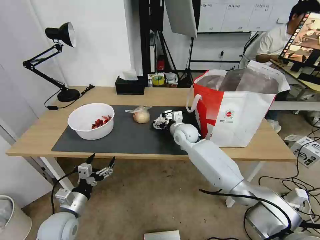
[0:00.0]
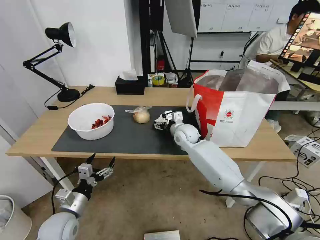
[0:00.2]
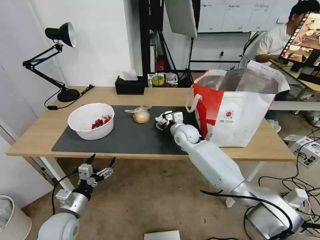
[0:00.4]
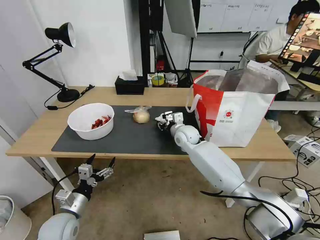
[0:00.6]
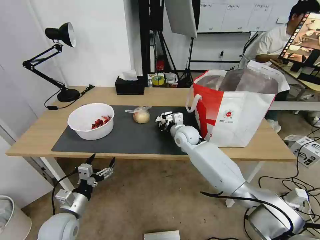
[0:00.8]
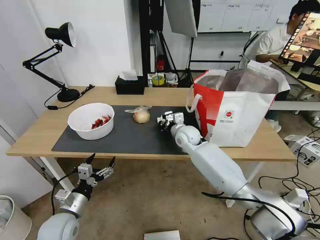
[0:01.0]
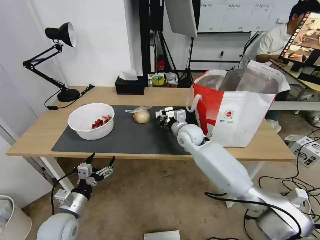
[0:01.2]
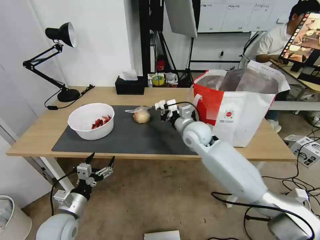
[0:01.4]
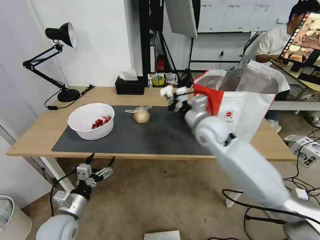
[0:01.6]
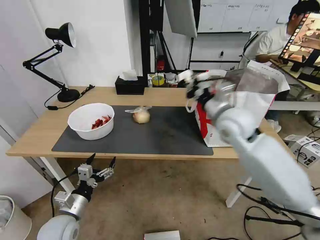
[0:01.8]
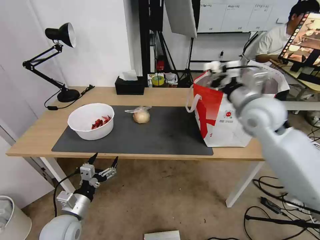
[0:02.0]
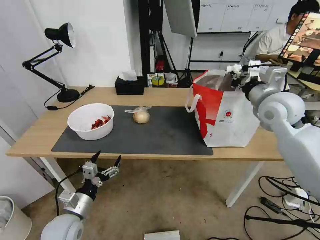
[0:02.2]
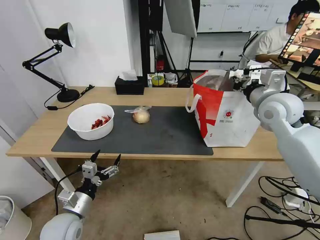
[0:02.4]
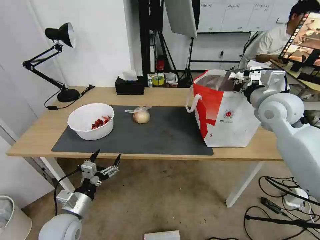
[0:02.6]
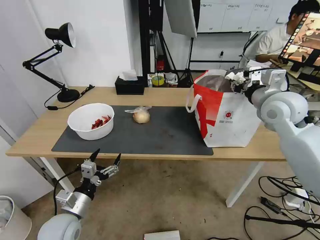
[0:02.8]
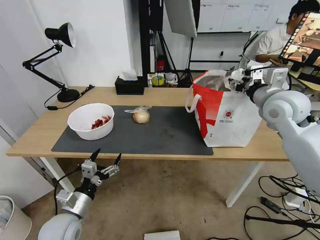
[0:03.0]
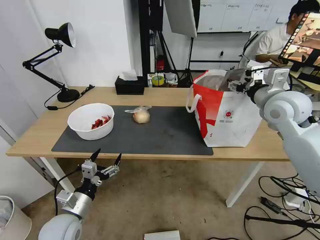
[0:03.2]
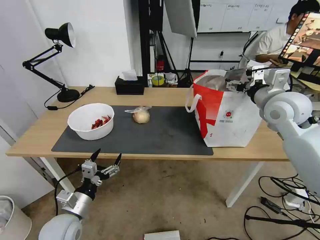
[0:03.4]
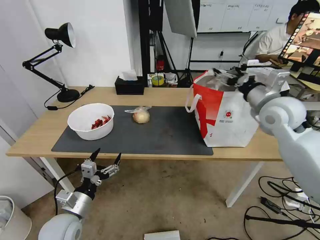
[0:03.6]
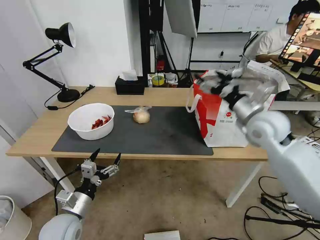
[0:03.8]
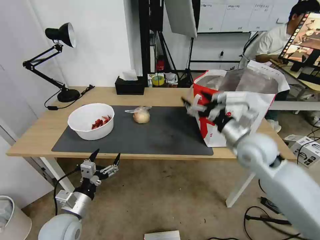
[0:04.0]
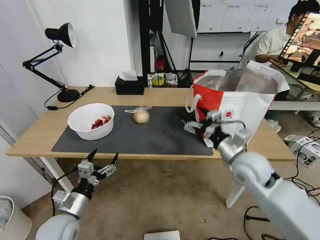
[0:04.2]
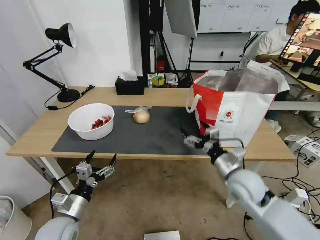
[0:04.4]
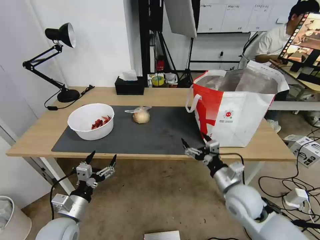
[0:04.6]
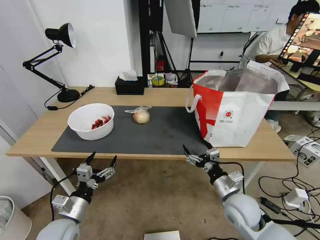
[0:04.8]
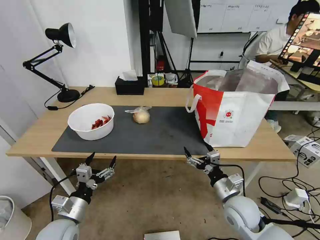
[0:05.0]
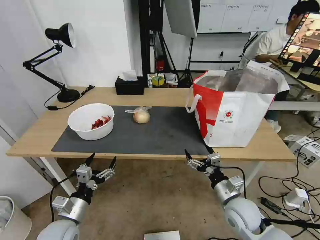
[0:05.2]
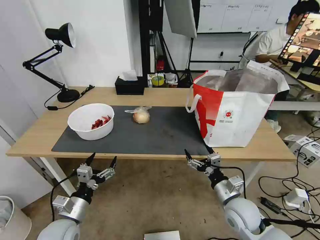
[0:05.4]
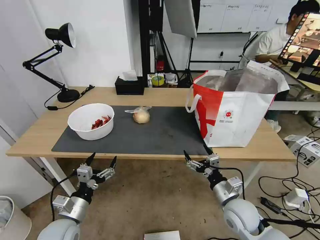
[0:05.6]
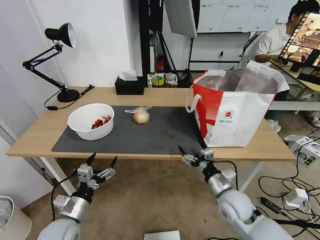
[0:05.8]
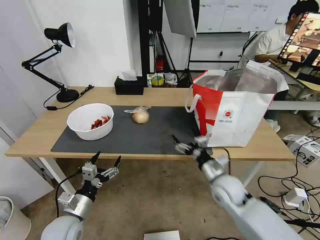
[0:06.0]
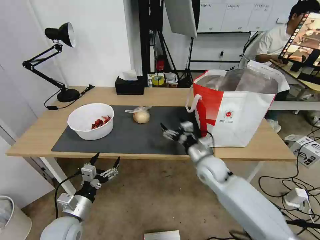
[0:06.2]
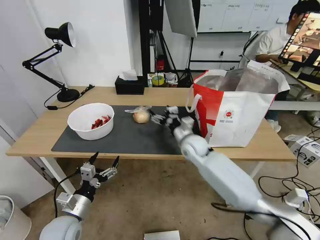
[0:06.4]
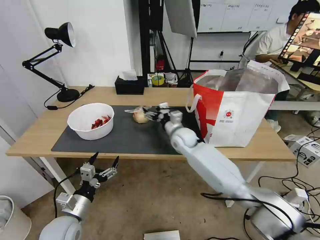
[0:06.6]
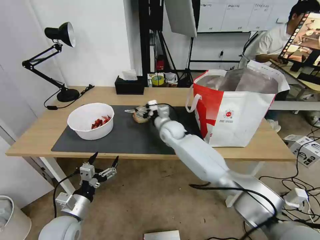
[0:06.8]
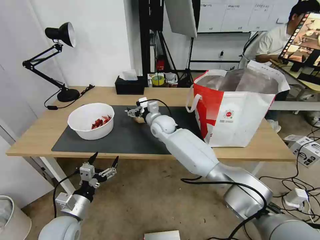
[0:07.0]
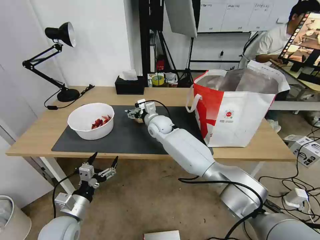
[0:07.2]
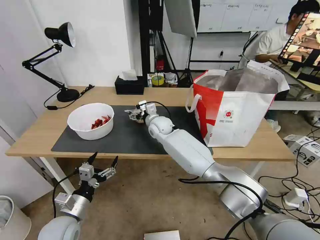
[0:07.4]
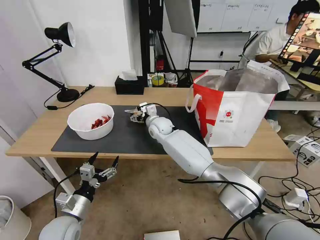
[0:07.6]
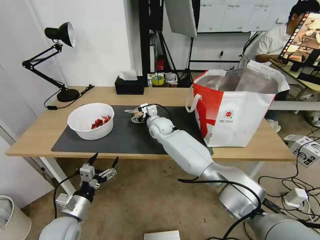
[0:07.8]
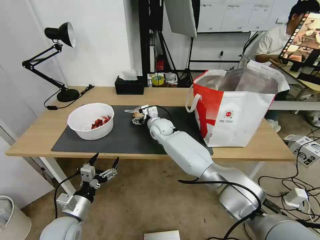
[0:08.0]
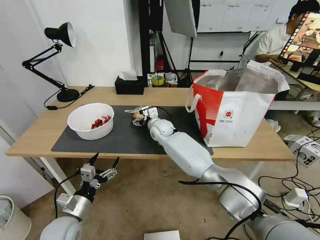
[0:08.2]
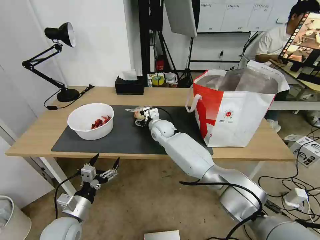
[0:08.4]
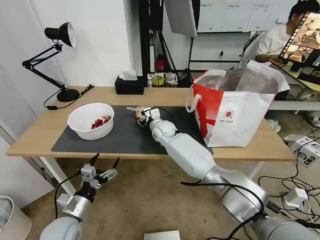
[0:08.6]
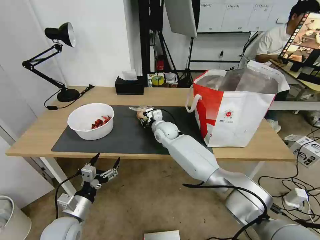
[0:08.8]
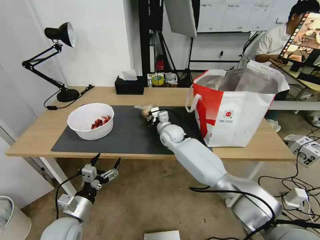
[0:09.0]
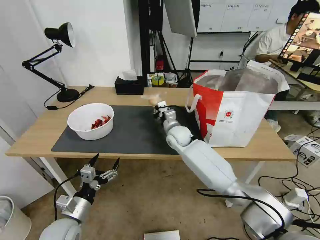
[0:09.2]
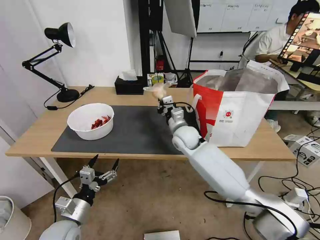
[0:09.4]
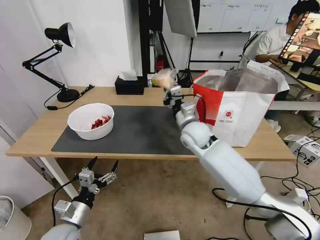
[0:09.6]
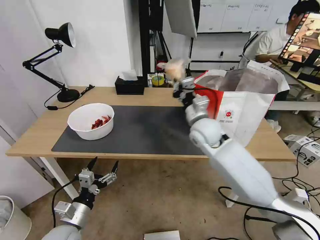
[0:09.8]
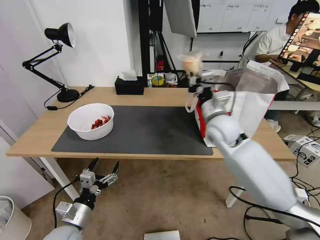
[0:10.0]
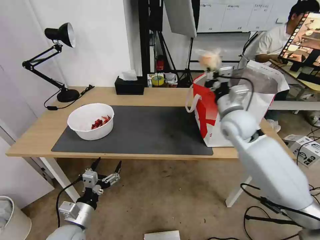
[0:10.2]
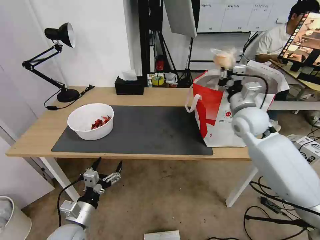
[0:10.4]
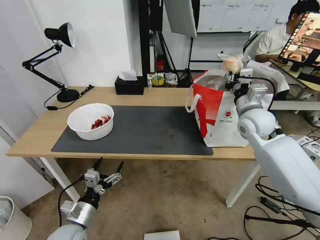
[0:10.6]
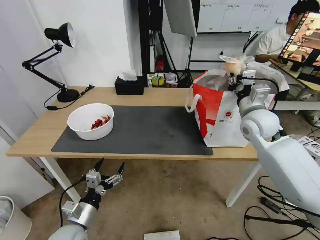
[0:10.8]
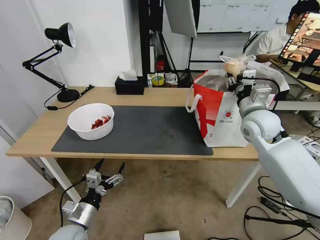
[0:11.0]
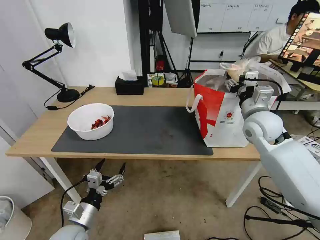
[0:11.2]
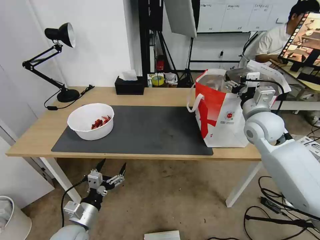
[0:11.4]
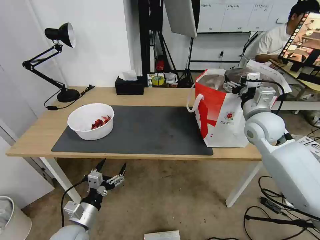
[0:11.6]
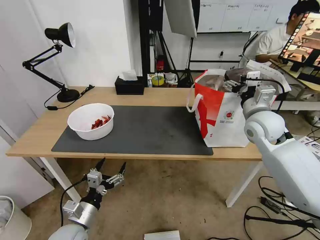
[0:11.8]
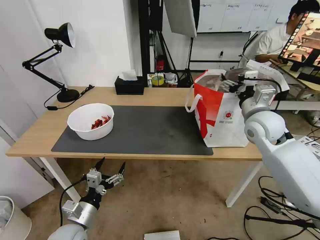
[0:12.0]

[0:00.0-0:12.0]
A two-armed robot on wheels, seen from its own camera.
Task of the whole recording: Pick up the trash from the table and place it into the takeout bag.
0:00.0 to 0:01.6: The right gripper shifts roughly 15 cm upward, backward and to the right, and closes up.
0:01.6 to 0:03.0: The right gripper moves to the right and upward, roughly 20 cm, and opens.
0:03.0 to 0:04.4: The right gripper heads downward, backward and to the left, covering approximately 20 cm, and opens up.
0:04.4 to 0:06.0: The right gripper travels downward by some 10 cm.
0:06.0 to 0:07.6: The right gripper shifts roughly 35 cm forward and to the left.
0:07.6 to 0:09.0: The right gripper changes place by some 5 cm, and closes up.
0:09.0 to 0:10.4: The right gripper heads to the right and upward, covering roughly 30 cm.
0:10.4 to 0:12.0: The right gripper opens.

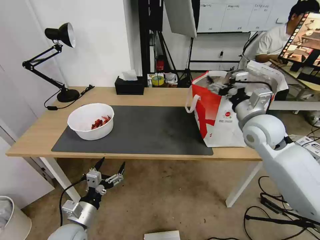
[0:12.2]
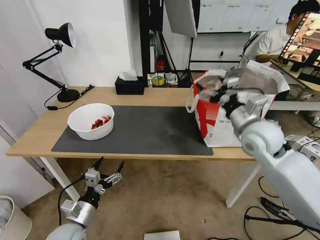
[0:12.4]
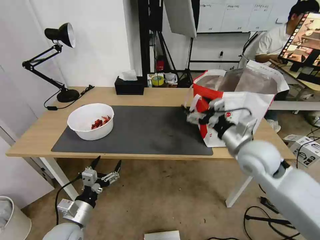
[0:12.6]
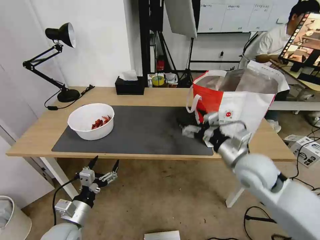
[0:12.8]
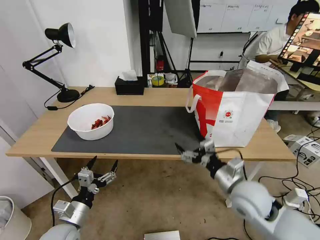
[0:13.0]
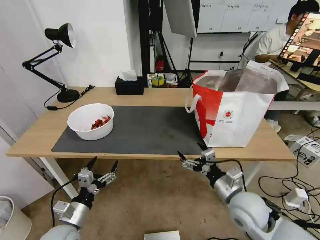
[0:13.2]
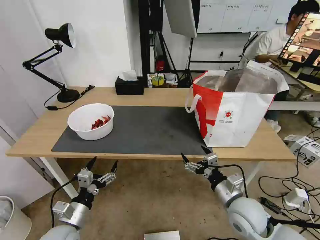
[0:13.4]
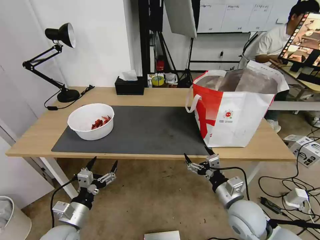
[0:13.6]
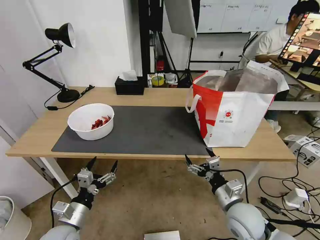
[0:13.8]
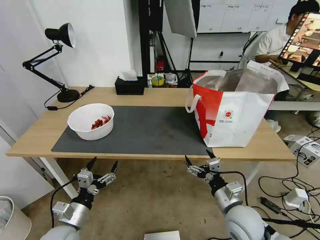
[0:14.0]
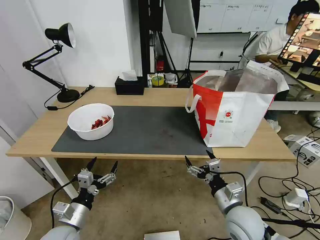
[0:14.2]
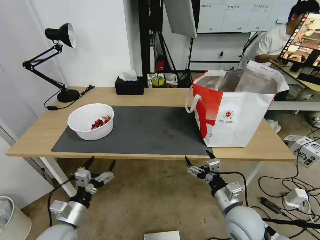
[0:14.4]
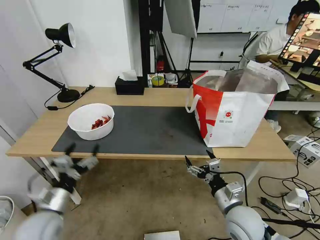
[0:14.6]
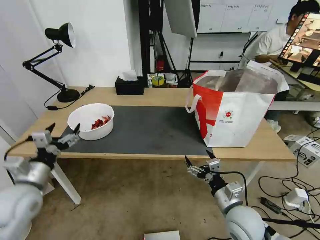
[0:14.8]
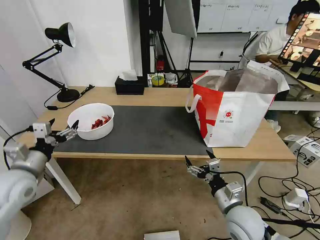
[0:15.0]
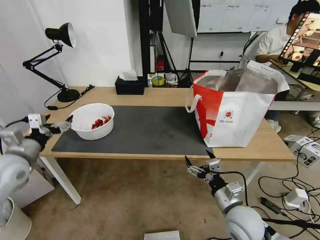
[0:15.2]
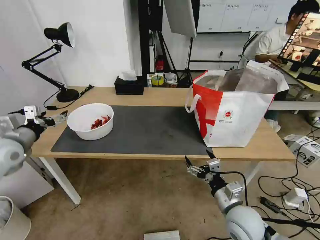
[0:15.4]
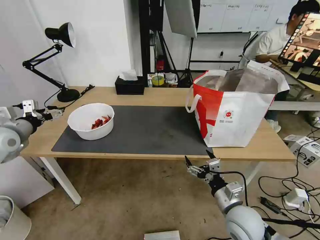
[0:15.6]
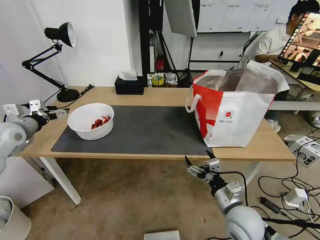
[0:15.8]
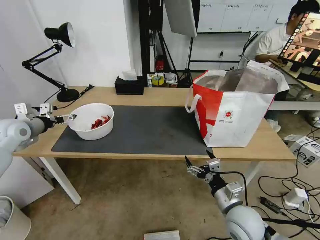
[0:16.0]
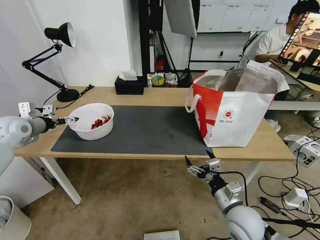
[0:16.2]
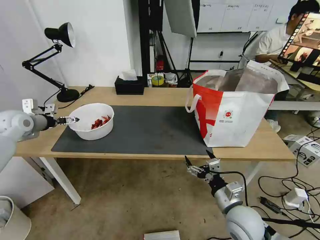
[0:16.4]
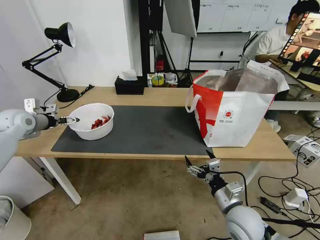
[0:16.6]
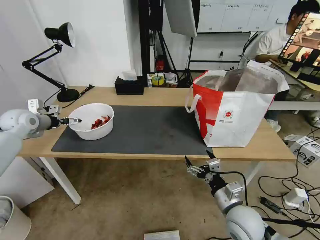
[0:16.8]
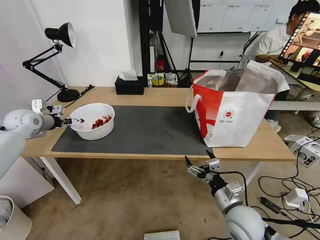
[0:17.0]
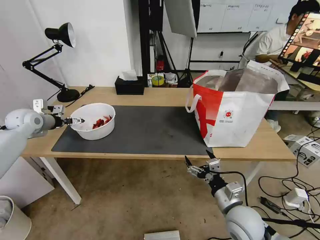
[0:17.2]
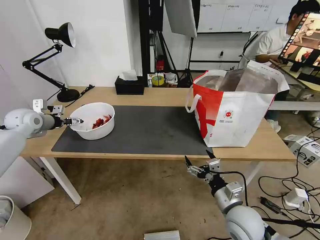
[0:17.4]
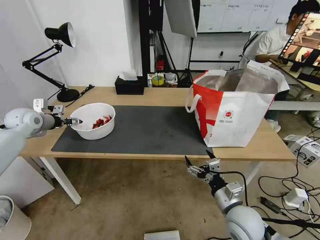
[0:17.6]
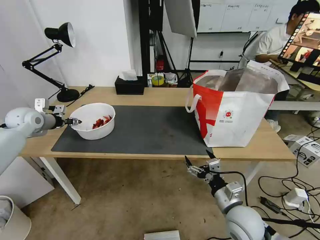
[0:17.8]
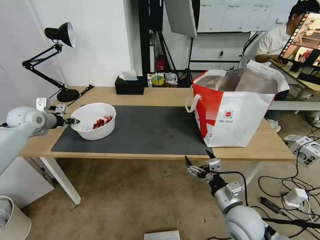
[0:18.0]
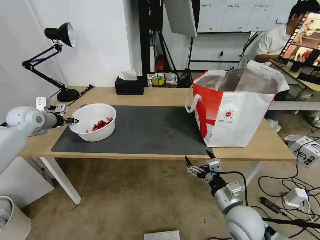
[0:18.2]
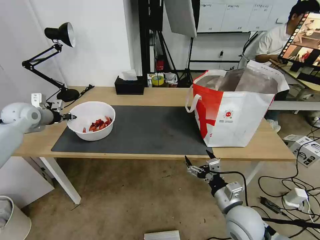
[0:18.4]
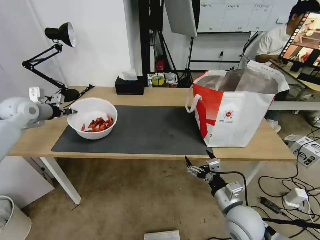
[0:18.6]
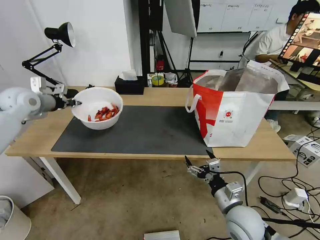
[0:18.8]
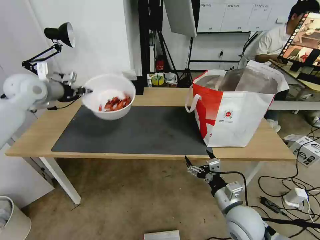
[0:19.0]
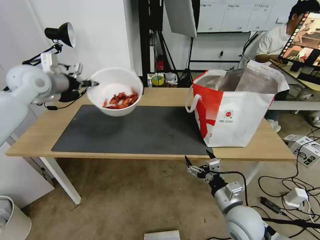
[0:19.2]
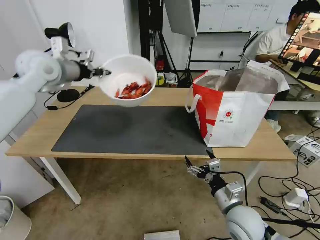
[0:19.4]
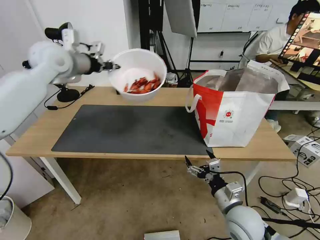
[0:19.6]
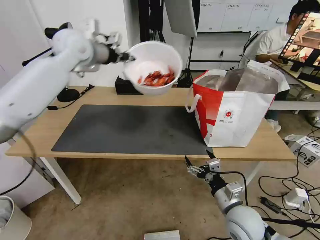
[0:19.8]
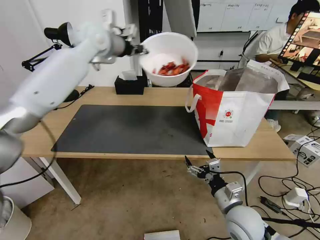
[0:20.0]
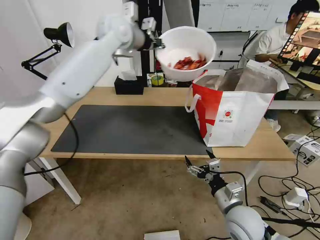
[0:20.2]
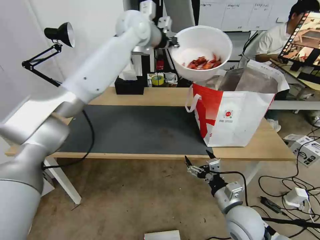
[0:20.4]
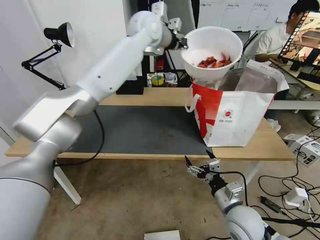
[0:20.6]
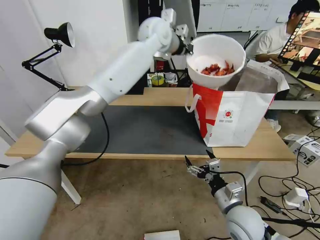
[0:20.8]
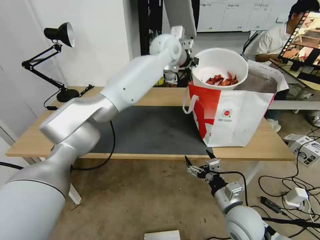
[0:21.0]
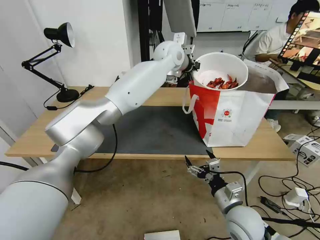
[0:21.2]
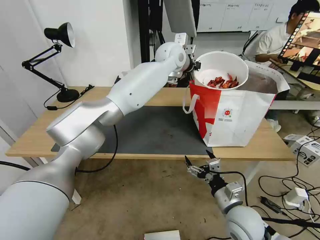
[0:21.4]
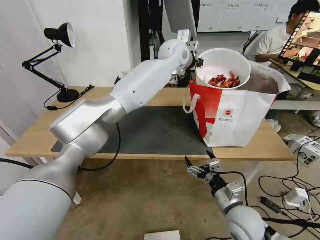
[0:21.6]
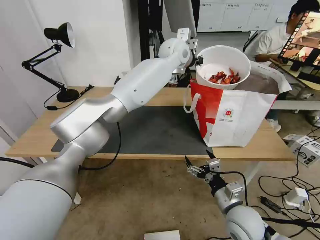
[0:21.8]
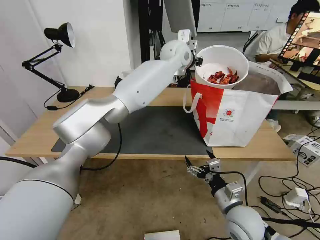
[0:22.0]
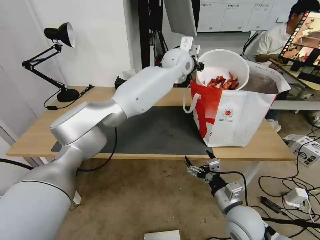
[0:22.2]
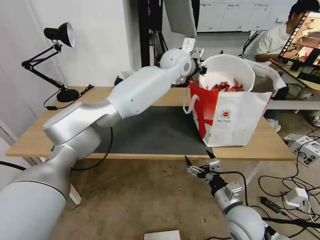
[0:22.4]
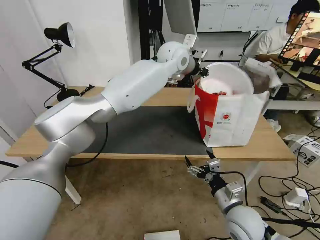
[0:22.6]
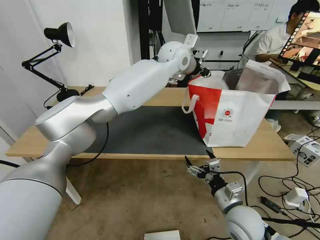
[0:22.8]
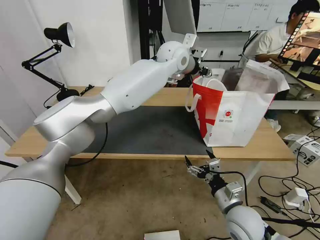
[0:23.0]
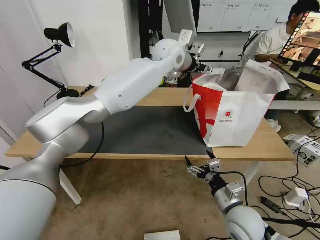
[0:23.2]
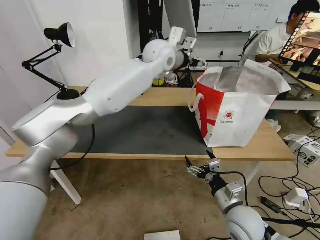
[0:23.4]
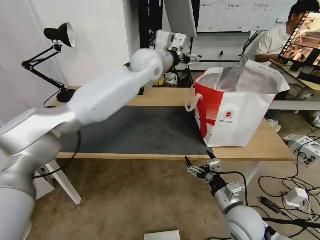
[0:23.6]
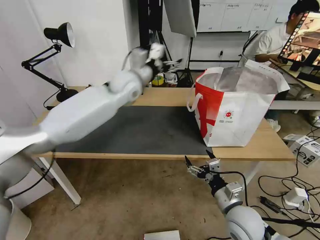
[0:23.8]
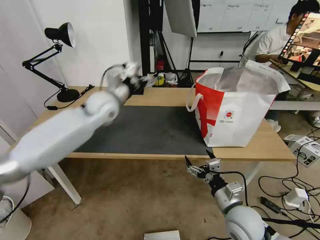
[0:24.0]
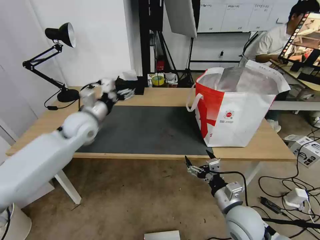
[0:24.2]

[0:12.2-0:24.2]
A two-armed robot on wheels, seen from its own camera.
Task of the whole recording: Pick up the trash from the table and place it into the takeout bag.
0:12.2 to 0:13.8: The right gripper moves downward and backward, some 25 cm.
0:13.8 to 0:15.2: The left gripper moves upward, forward and to the left, approximately 25 cm.
0:15.2 to 0:16.6: The left gripper travels forward by about 15 cm.
0:16.6 to 0:18.2: The left gripper closes its fingers.
0:18.2 to 0:19.8: The left gripper moves to the right and upward, about 30 cm.
0:19.8 to 0:21.2: The left gripper shifts some 25 cm to the right.
0:21.2 to 0:22.6: The grippers make only small movements.
0:22.6 to 0:24.2: The left gripper travels to the left, downward and backward by approximately 35 cm, and opens up.
